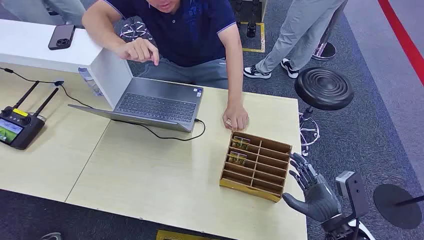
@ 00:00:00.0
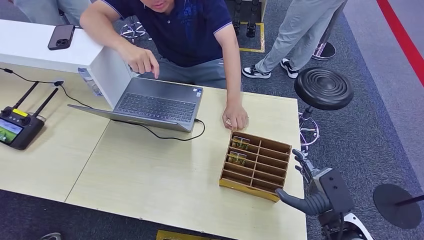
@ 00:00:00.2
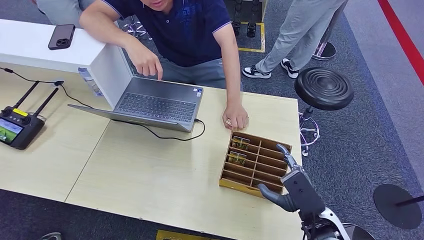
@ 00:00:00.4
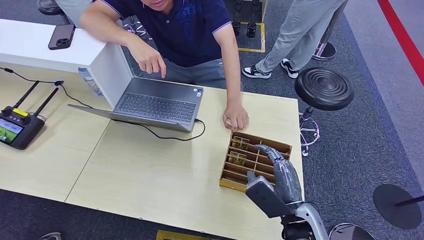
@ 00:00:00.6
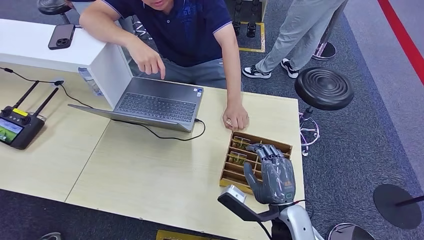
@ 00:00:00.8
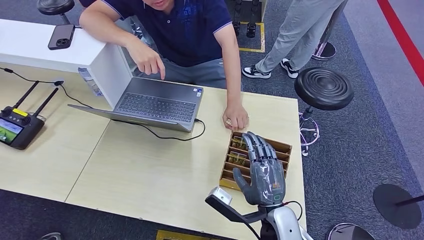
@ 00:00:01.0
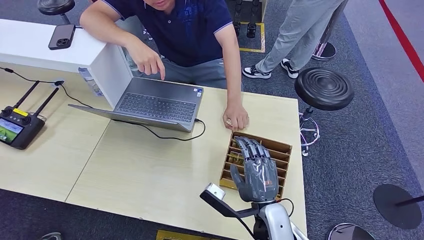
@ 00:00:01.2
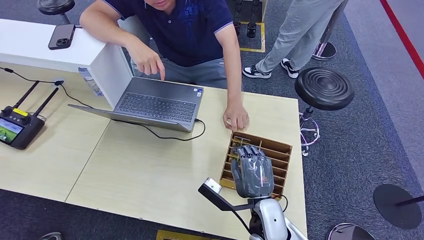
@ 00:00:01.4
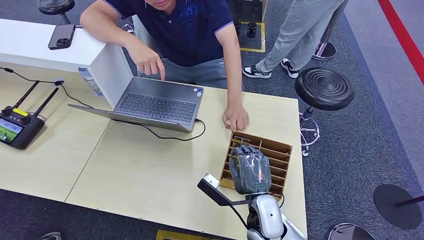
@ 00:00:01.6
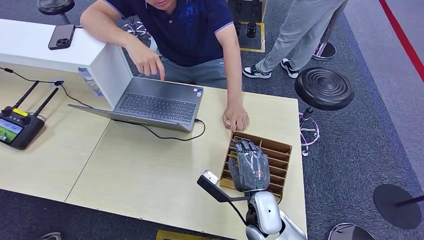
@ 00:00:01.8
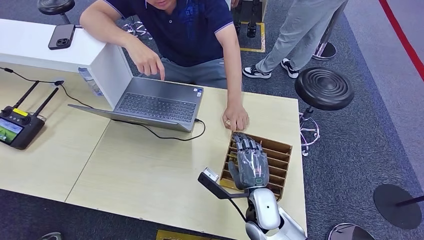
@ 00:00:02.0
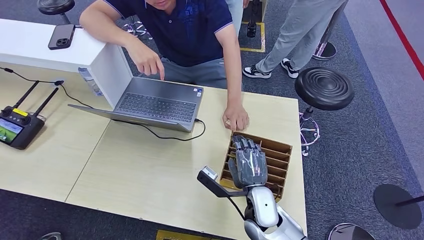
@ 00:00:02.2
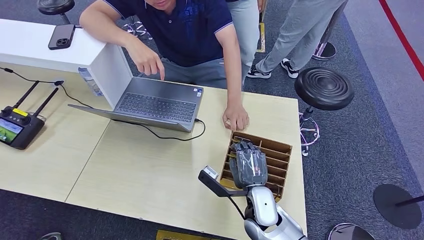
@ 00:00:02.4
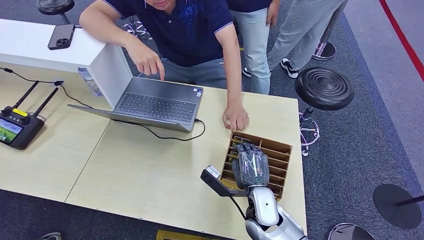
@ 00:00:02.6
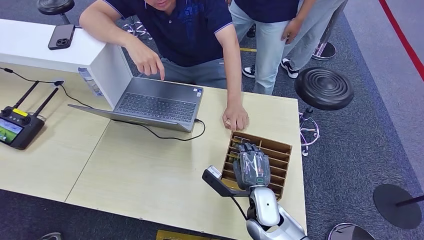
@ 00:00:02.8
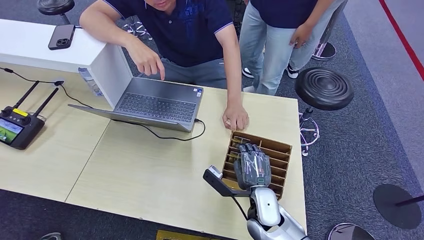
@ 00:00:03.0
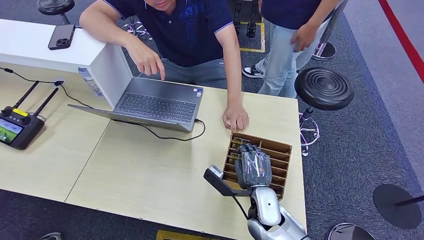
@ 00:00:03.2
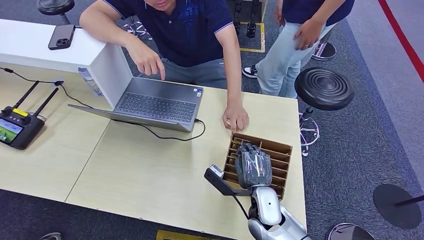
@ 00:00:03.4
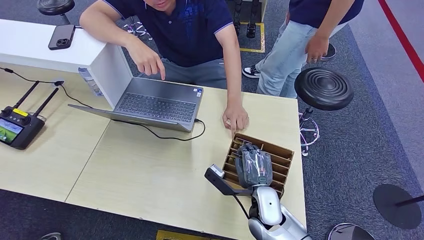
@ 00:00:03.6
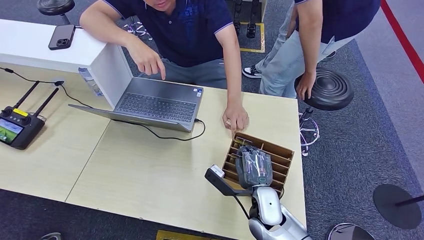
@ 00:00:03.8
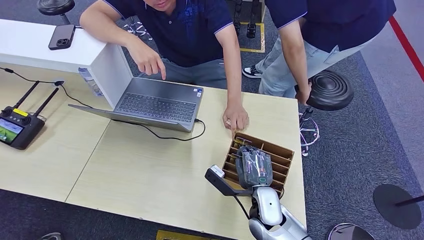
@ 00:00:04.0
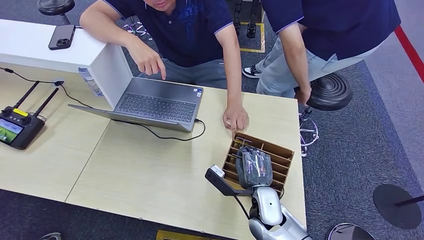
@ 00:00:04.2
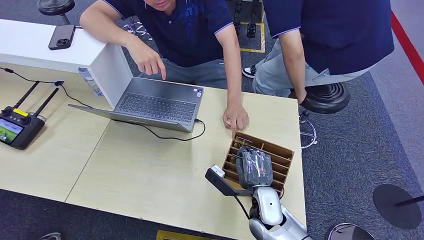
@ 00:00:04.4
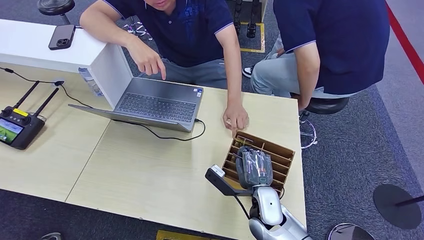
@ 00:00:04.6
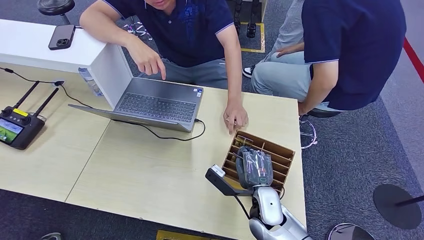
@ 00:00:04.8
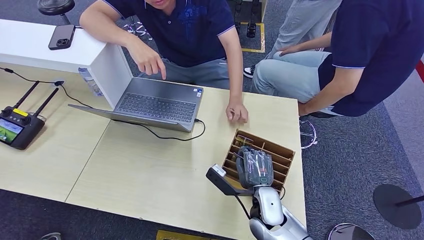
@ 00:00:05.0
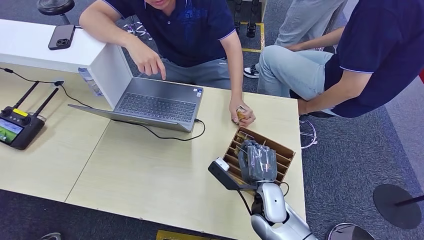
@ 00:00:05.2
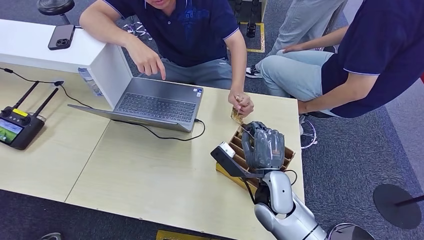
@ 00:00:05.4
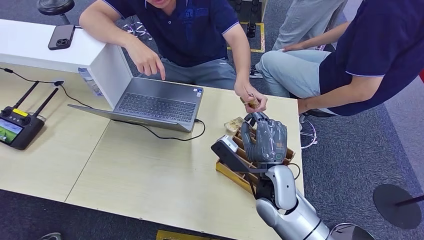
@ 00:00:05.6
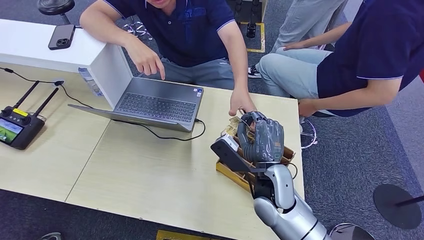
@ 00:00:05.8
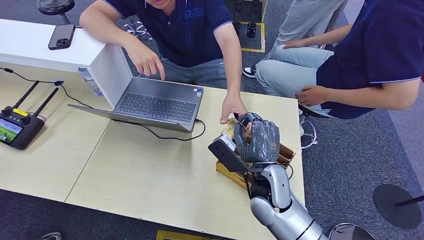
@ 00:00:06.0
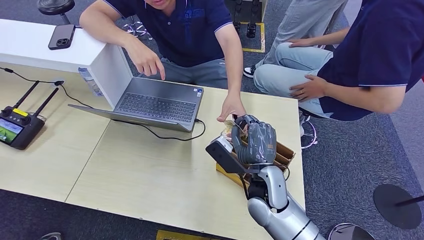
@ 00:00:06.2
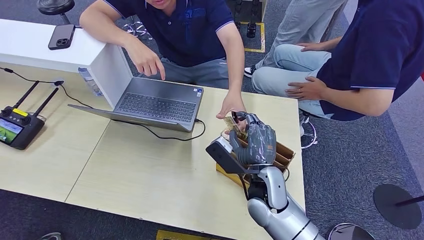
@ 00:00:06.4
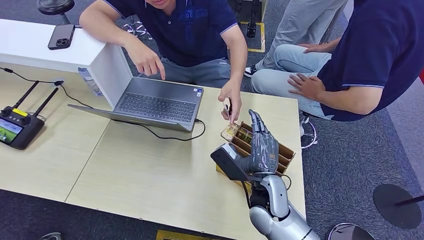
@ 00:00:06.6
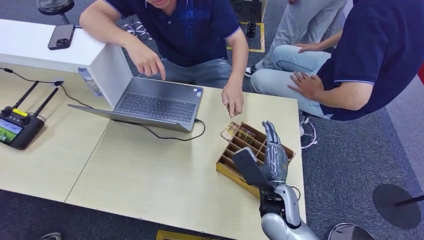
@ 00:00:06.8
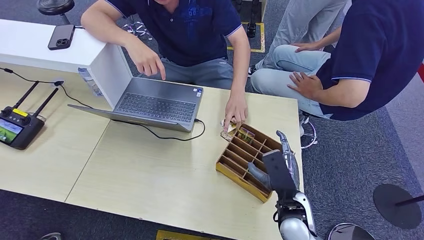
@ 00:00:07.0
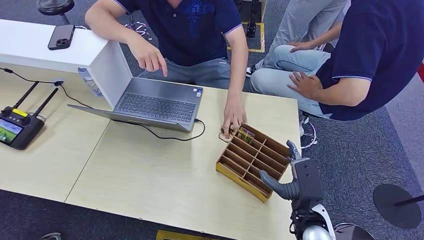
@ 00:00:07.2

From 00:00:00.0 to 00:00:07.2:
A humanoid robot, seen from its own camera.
Step, from 00:00:00.0 to 00:00:04.6: Pick up the room card from the card holder.
Step, from 00:00:04.8 to 00:00:07.2: Hand the room card to the target.
From 00:00:01.4 to 00:00:02.8: The hands move only a little.
From 00:00:02.8 to 00:00:04.4: Both hands stay put.
From 00:00:05.8 to 00:00:07.2: The right hand travels to the right and backward by some 20 cm.

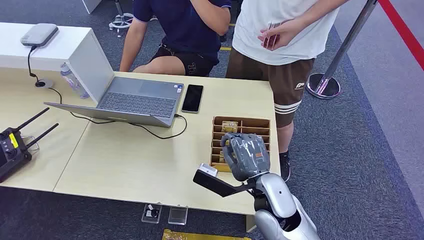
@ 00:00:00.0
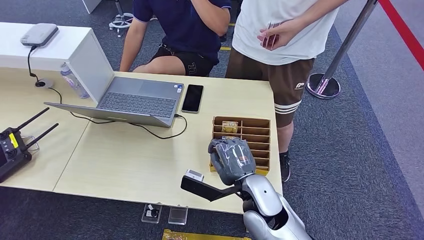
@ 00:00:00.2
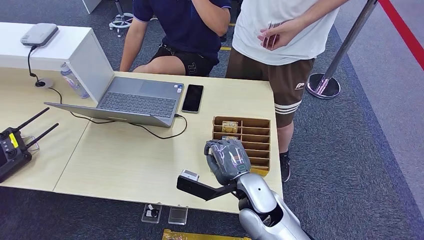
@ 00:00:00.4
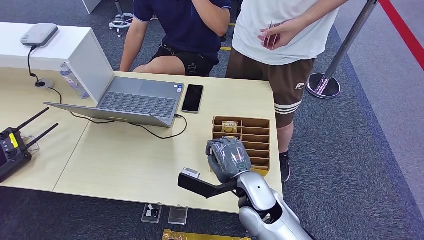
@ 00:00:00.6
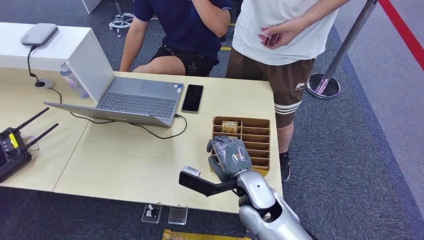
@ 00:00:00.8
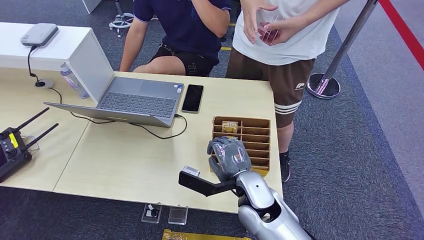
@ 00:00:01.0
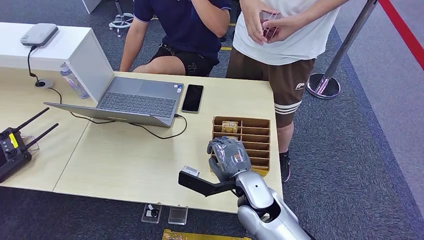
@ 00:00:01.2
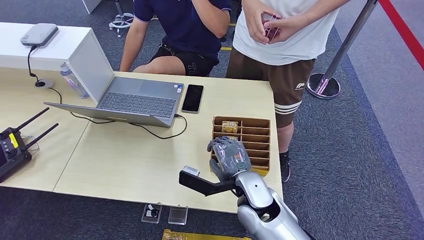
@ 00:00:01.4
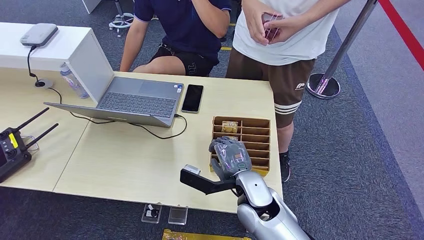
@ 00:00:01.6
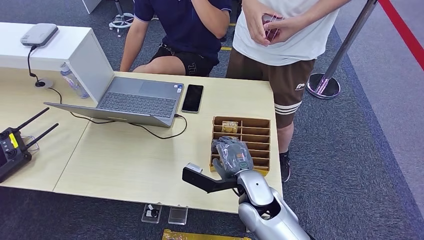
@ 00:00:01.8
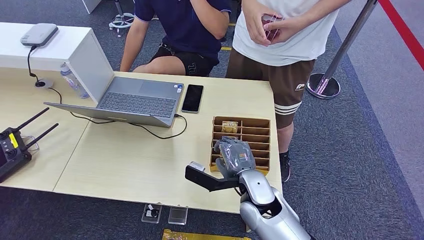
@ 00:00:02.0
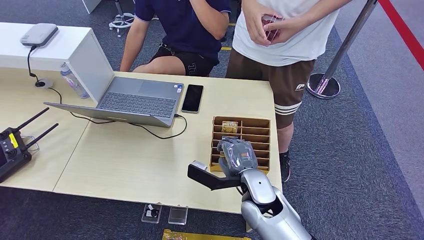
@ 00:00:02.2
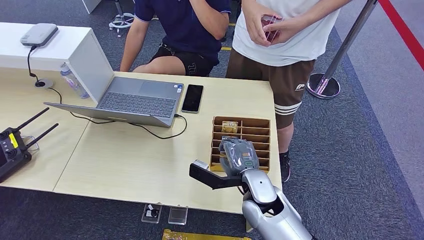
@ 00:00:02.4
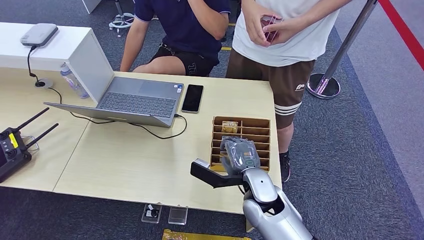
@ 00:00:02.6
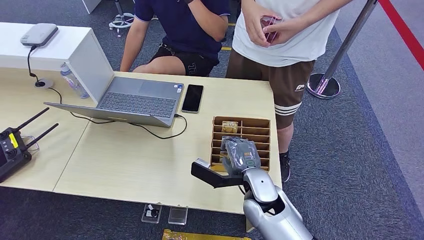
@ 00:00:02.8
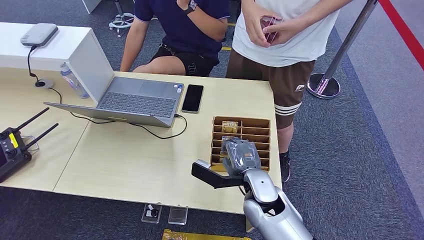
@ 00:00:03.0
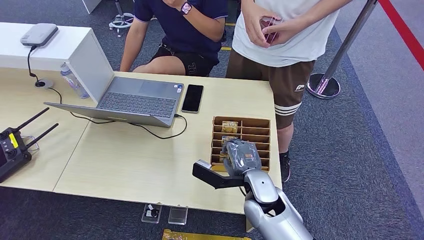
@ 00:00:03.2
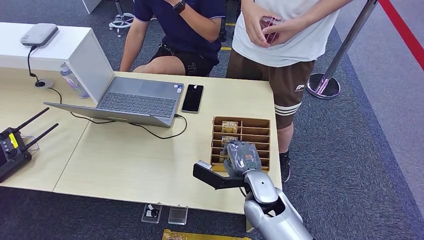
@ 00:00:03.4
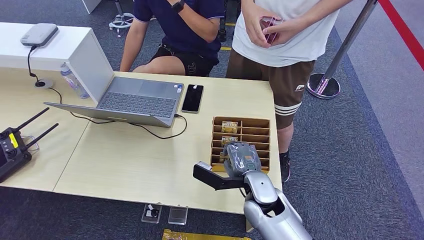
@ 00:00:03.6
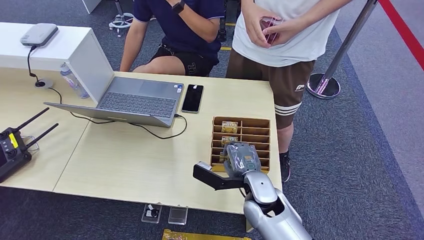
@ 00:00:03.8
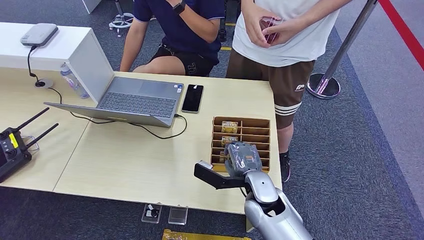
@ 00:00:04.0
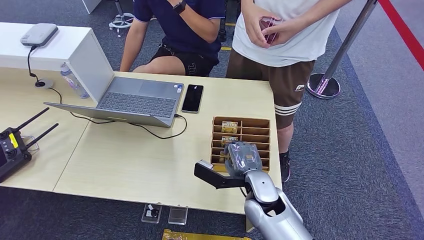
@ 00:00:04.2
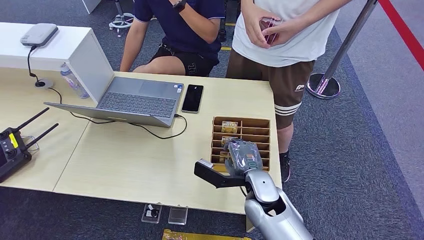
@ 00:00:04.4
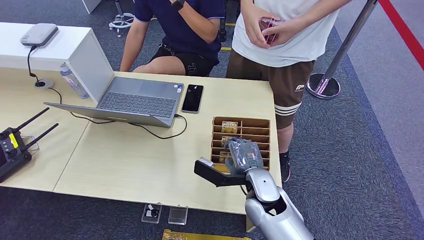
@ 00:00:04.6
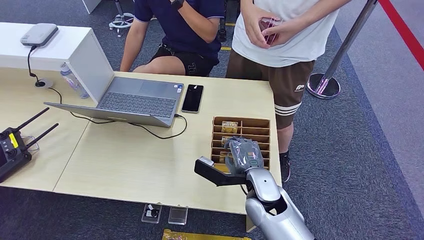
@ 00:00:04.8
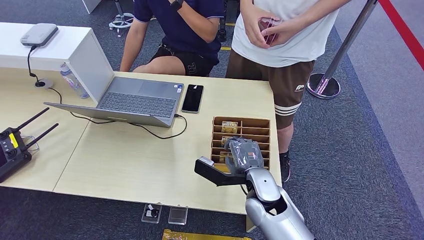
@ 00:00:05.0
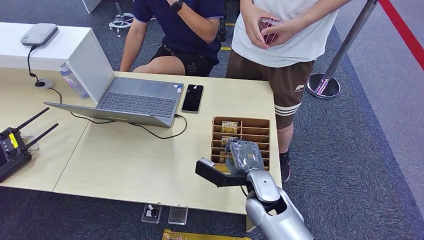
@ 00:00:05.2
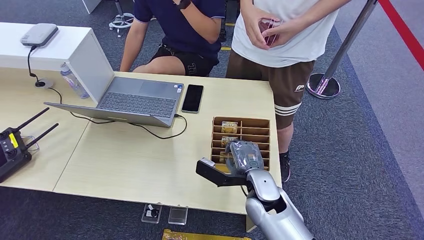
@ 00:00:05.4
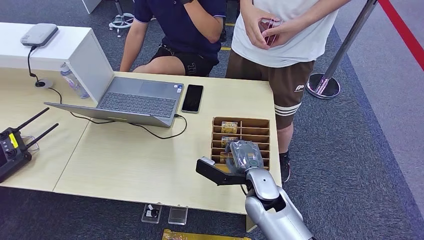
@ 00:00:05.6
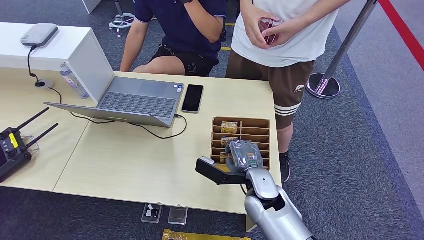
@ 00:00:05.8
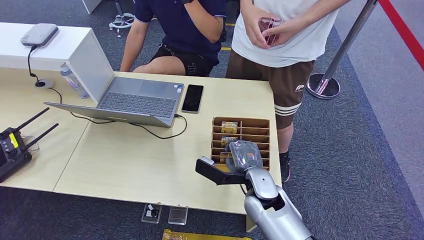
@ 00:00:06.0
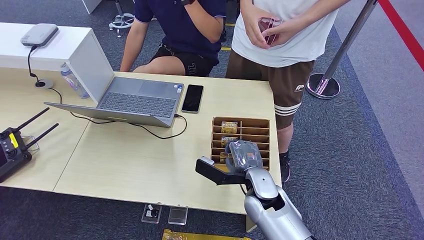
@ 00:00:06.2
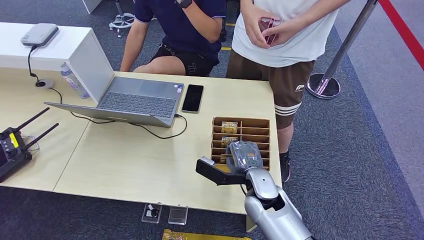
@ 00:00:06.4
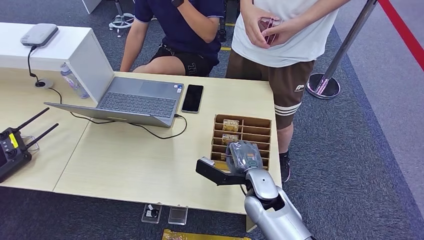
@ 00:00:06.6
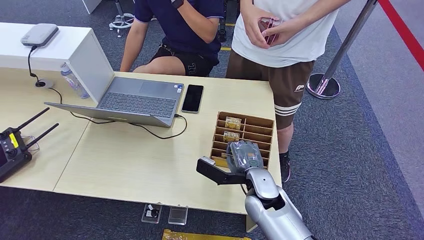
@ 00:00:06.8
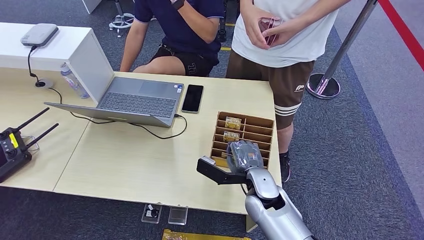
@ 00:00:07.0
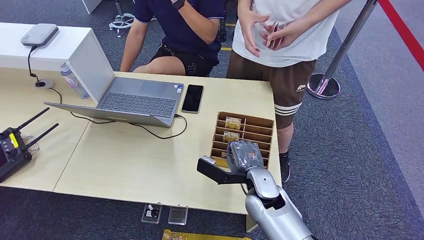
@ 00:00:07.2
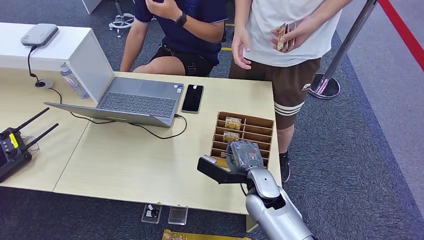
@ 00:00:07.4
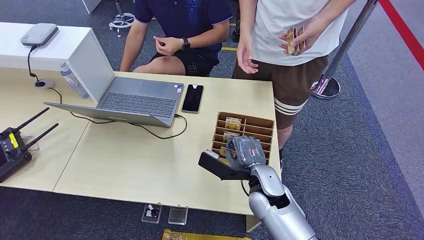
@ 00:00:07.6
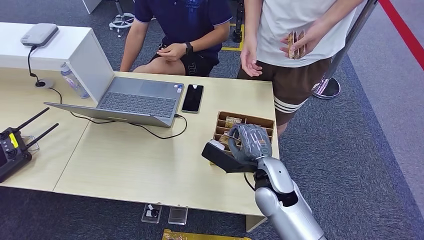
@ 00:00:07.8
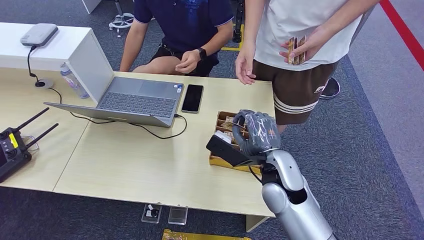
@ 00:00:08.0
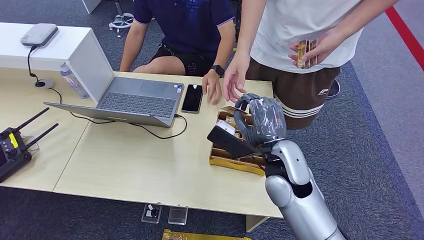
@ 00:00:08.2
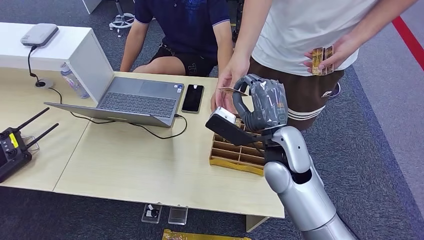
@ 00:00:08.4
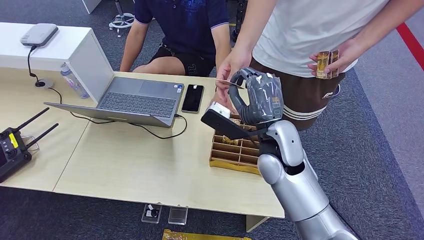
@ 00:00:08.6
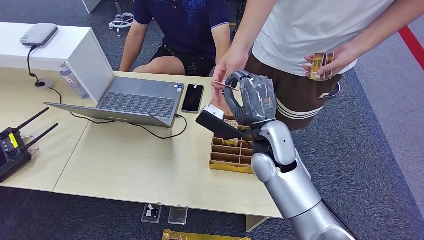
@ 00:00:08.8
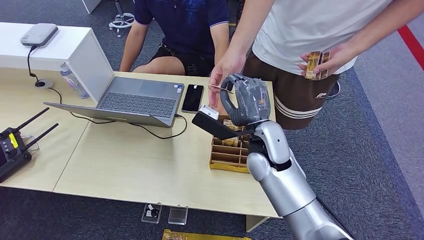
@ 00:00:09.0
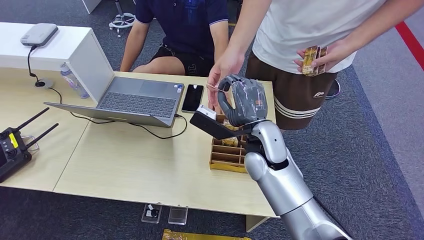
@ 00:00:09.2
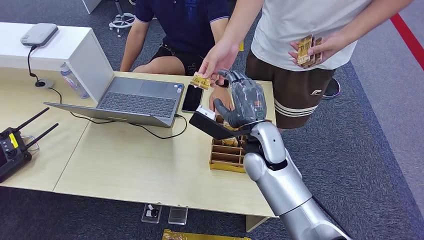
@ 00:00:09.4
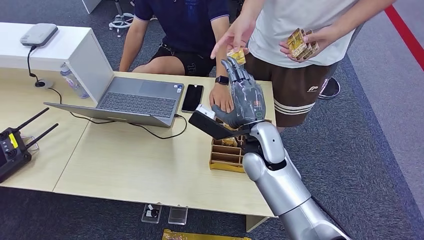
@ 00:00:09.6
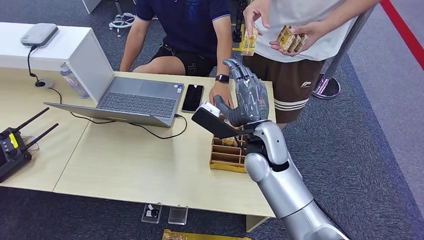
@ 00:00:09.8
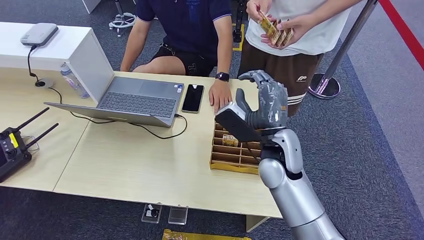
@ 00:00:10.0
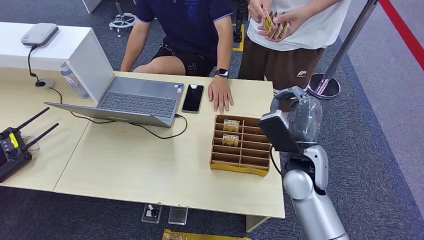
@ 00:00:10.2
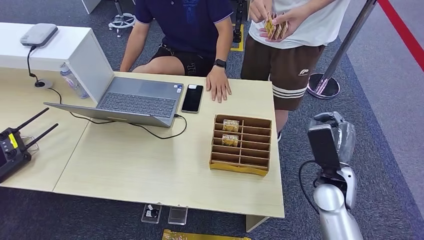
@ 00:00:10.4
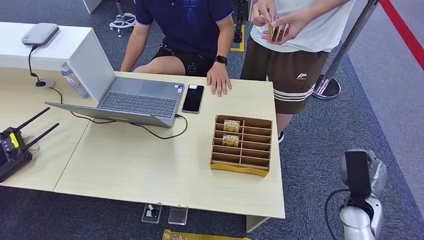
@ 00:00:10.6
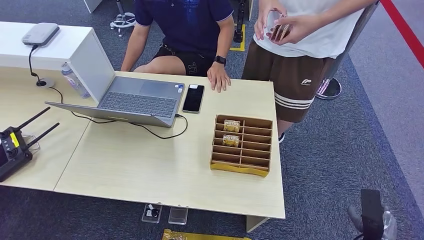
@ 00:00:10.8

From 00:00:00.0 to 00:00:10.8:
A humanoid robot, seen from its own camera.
Step, from 00:00:00.0 to 00:00:08.2: Pick up the room card from the card holder.
Step, from 00:00:08.4 to 00:00:10.8: Hand the room card to the target.
From 00:00:01.6 to 00:00:03.0: The hands stay close to where they were, moving slightly.
From 00:00:03.0 to 00:00:04.6: Neither hand changes place.
From 00:00:04.6 to 00:00:06.2: The hands stay close to where they were, moving slightly.
From 00:00:06.2 to 00:00:07.8: The right hand heads upward, covering some 10 cm.
